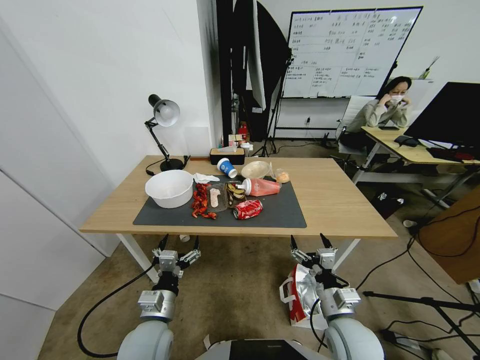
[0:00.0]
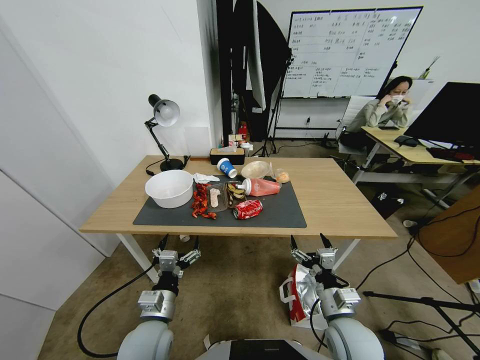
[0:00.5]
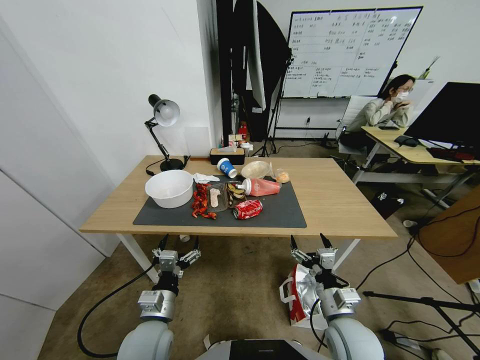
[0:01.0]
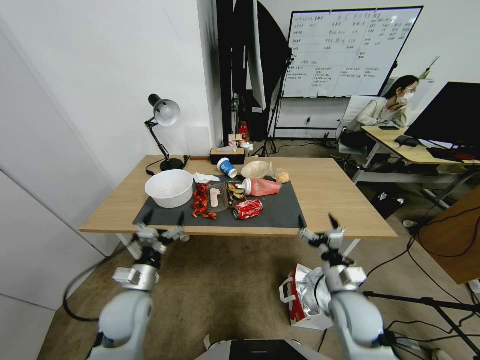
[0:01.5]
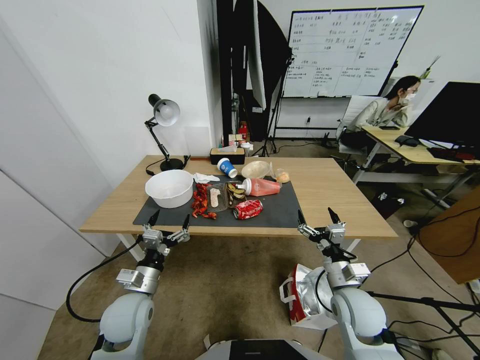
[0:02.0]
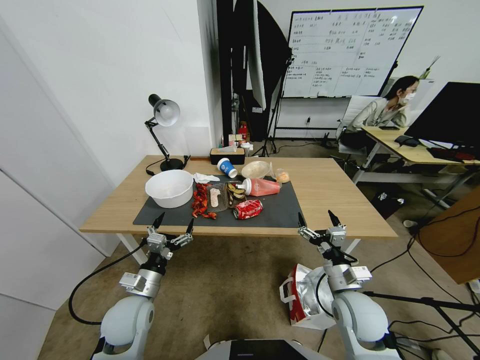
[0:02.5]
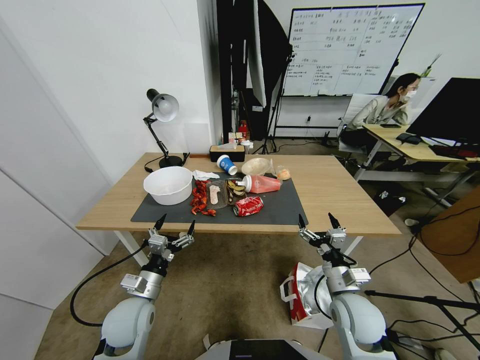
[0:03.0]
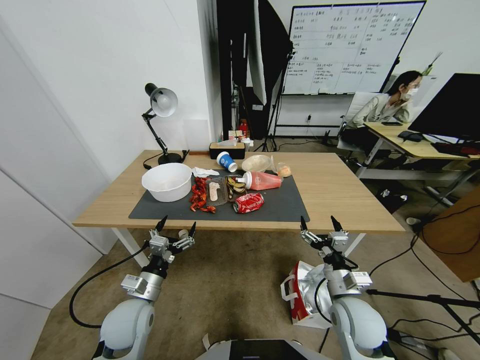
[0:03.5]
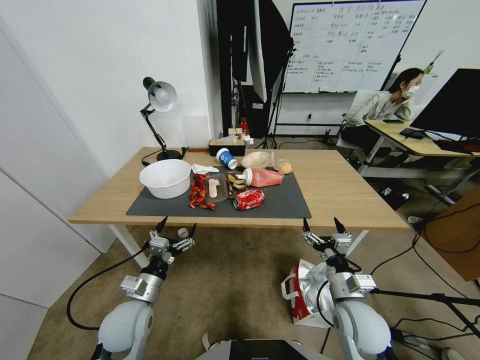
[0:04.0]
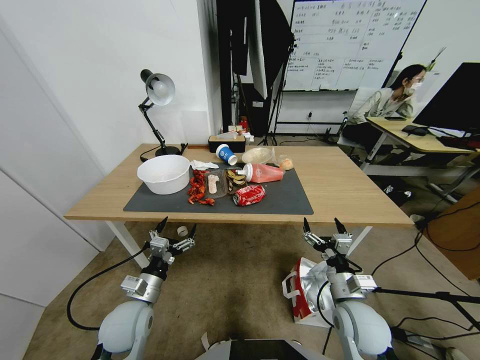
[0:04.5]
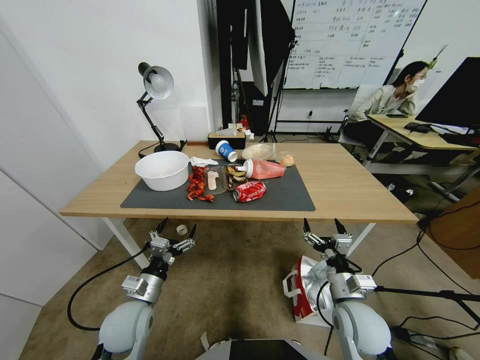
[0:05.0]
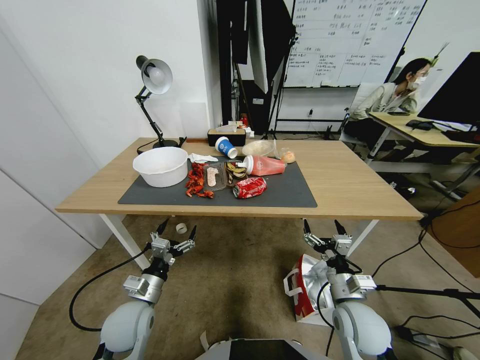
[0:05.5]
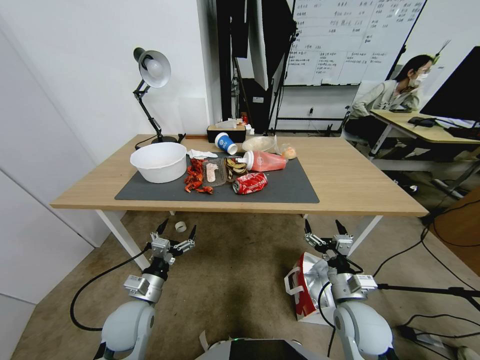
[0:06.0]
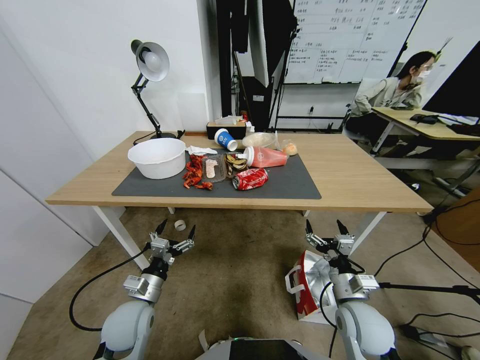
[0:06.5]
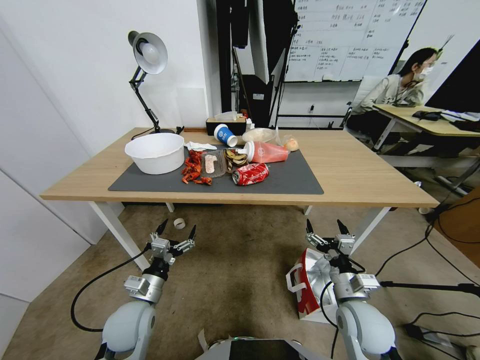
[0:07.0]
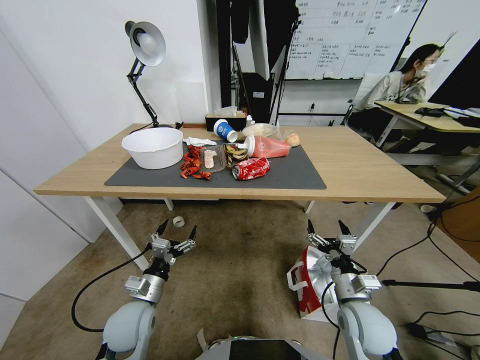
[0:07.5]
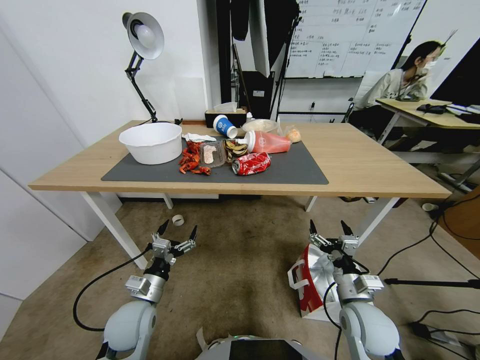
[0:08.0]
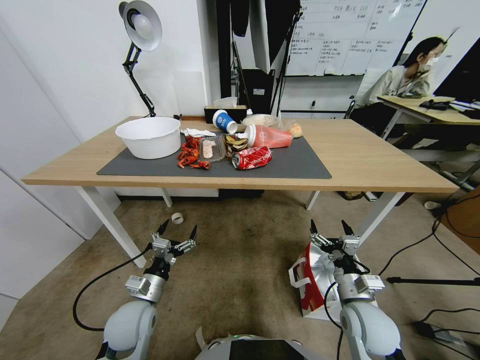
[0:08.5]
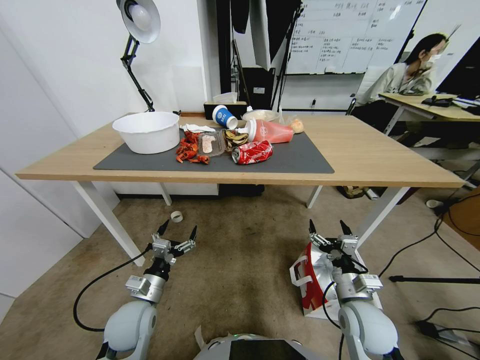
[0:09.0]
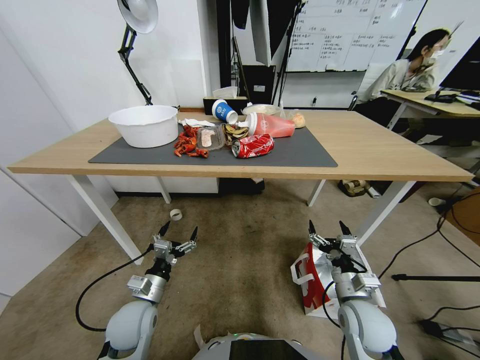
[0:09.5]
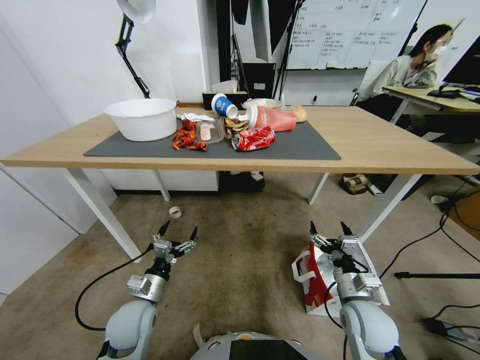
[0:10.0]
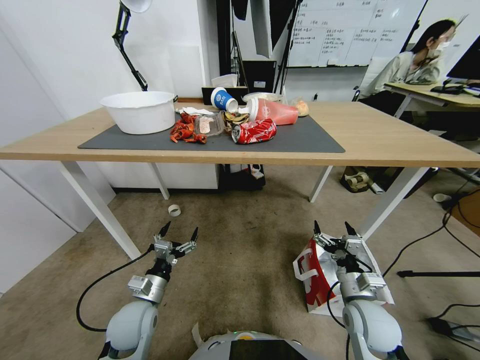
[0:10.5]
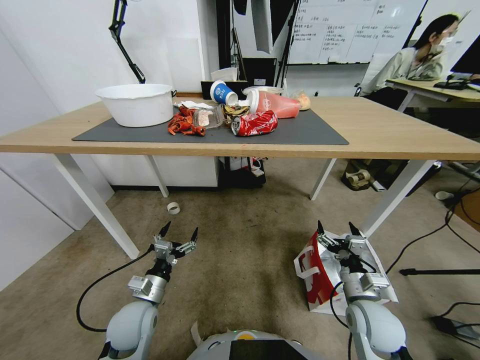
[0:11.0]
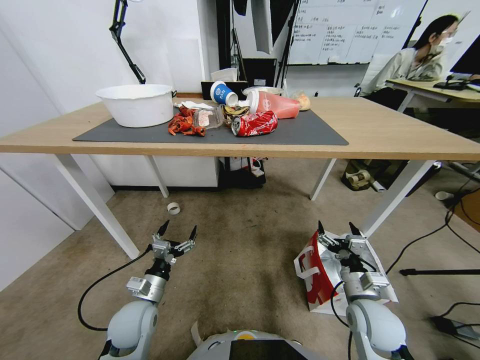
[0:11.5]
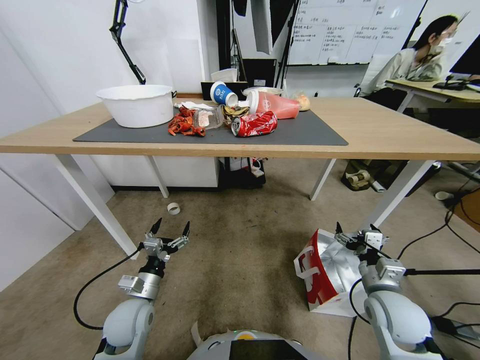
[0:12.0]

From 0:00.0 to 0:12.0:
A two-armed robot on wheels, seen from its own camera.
Task of the whole recording: Pick up the food delivery bag from the floor and place it on the table.
From 0:10.0 to 0:12.0: The right gripper travels to the right by about 5 cm.

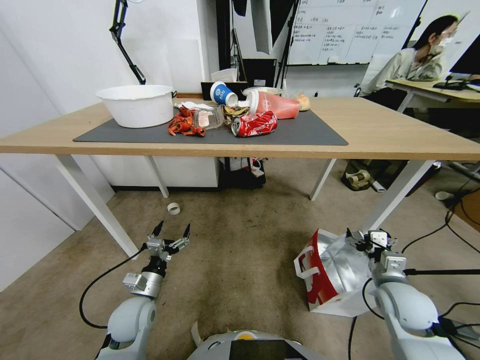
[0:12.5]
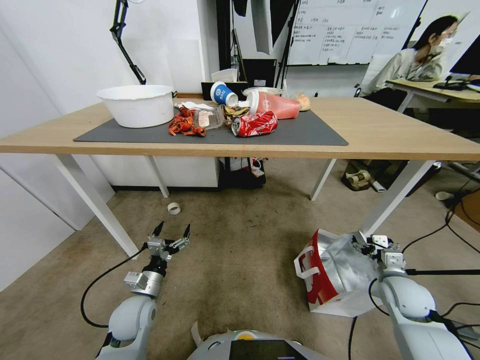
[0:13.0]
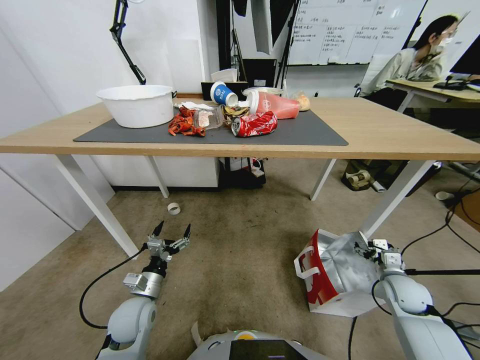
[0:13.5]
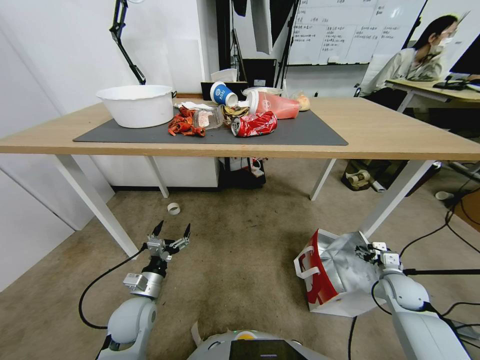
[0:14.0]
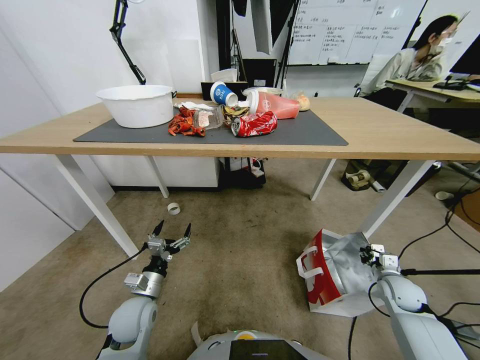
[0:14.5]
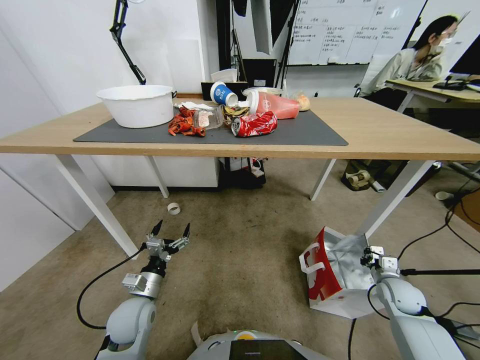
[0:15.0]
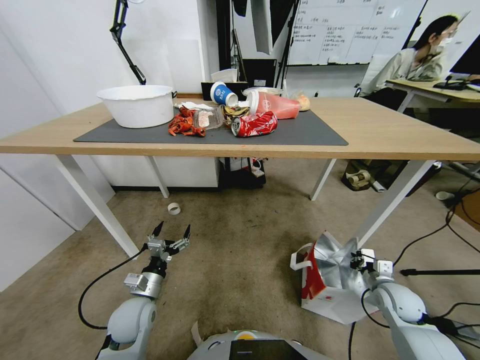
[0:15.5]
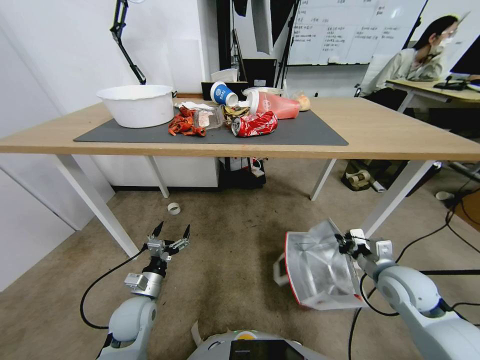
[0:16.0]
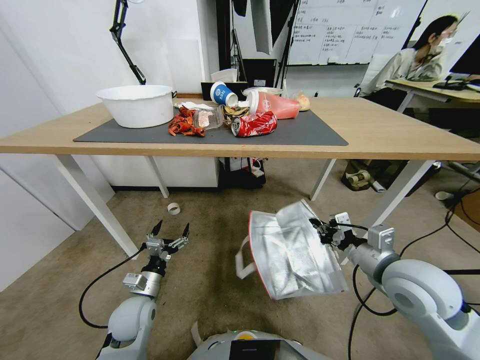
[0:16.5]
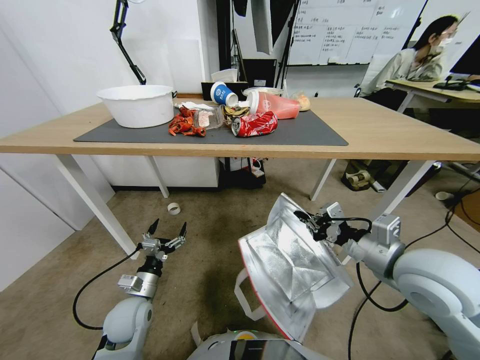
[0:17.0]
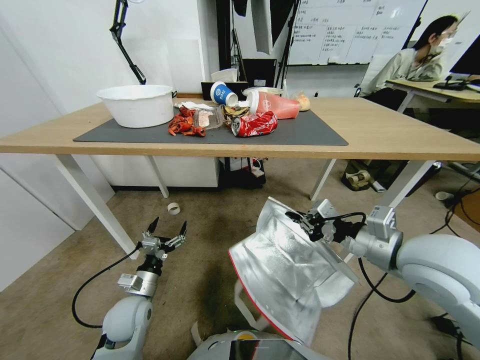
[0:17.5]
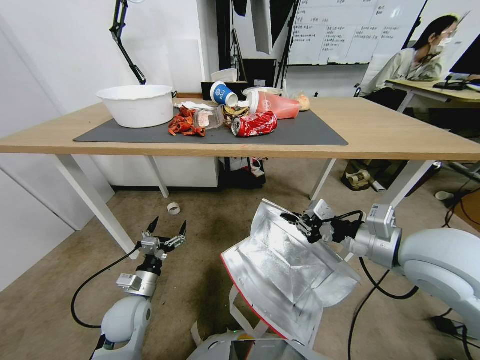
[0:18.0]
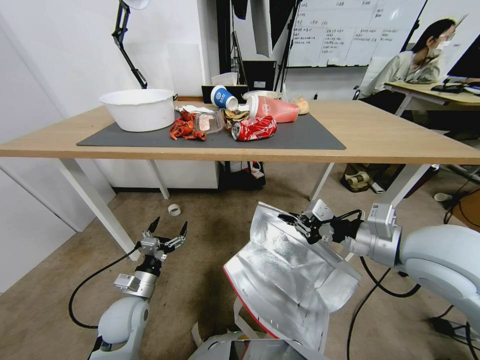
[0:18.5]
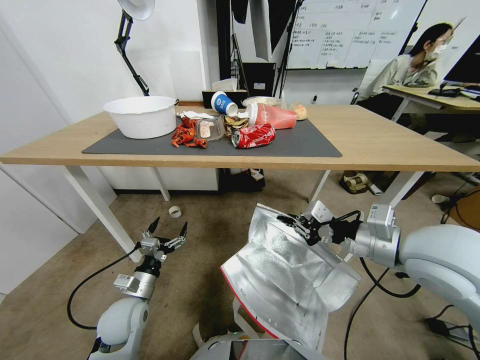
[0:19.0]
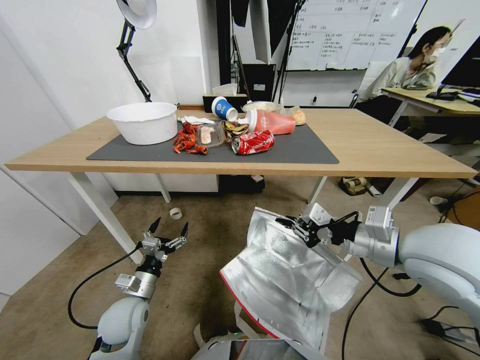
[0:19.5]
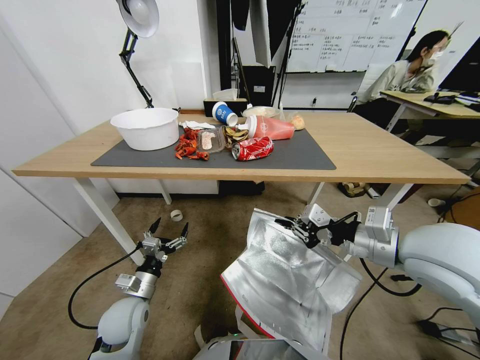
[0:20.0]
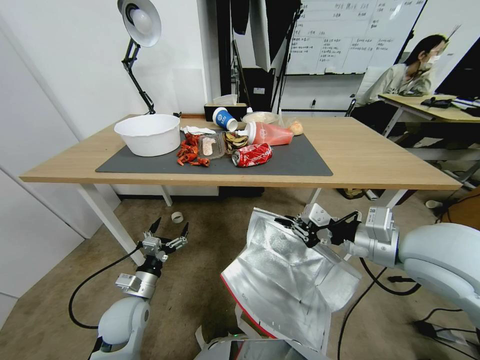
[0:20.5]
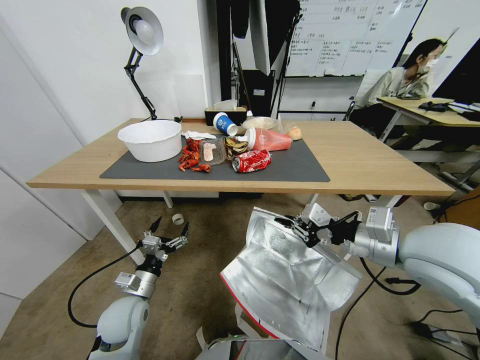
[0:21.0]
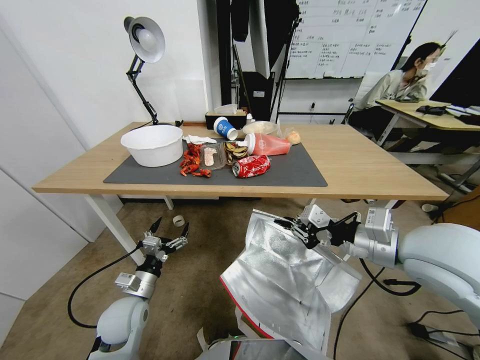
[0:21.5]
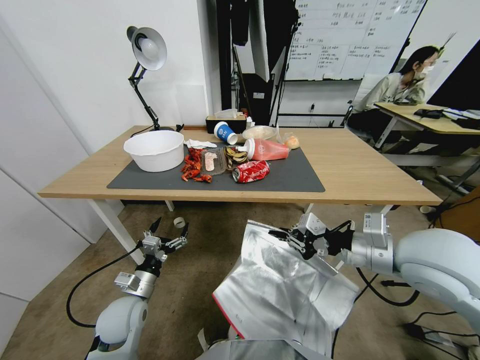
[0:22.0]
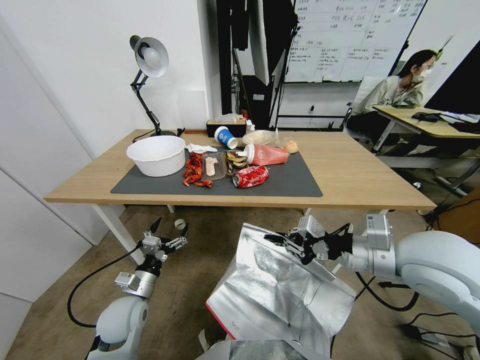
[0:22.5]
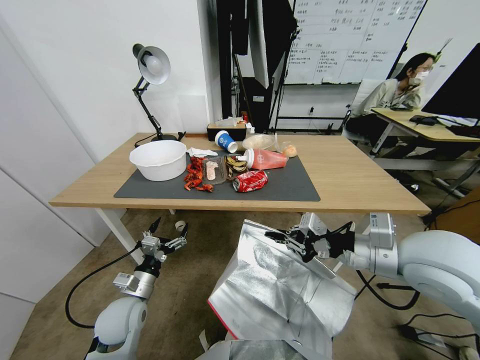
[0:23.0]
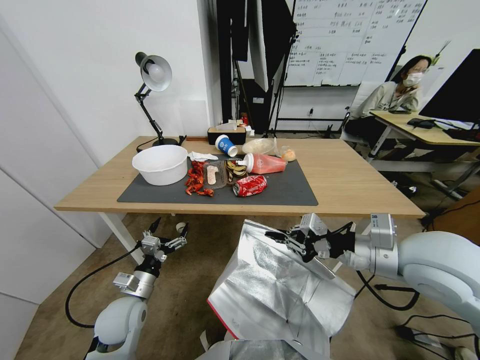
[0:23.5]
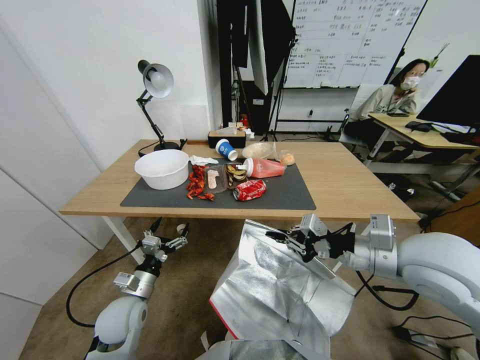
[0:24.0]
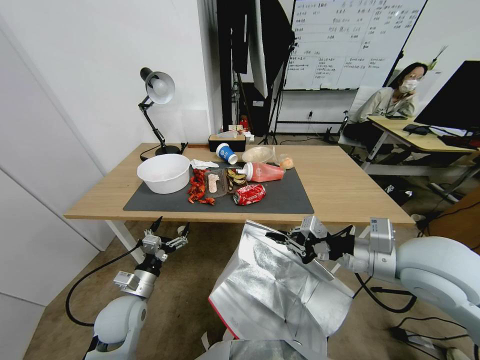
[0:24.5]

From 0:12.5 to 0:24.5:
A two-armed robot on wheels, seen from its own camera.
Task of the whole recording: Pick up the food delivery bag from the floor and place it on the table.
From 0:12.5 to 0:14.5: The right gripper moves downward and to the right, about 10 cm, and closes its fingers.
From 0:14.5 to 0:16.5: The right gripper heads upward and to the left, covering approximately 30 cm.
From 0:16.5 to 0:18.5: The right gripper travels upward by approximately 10 cm.

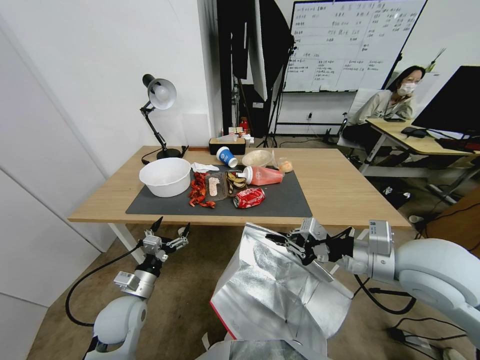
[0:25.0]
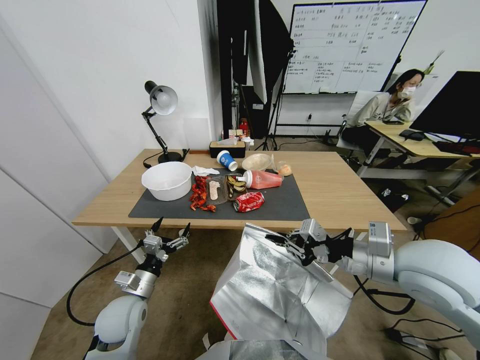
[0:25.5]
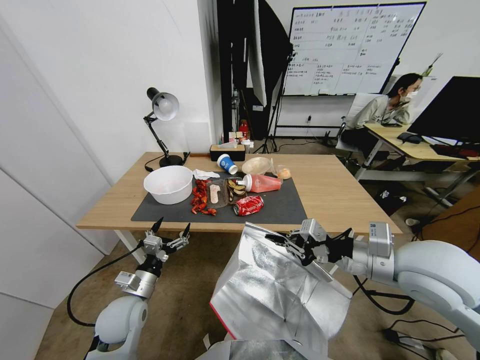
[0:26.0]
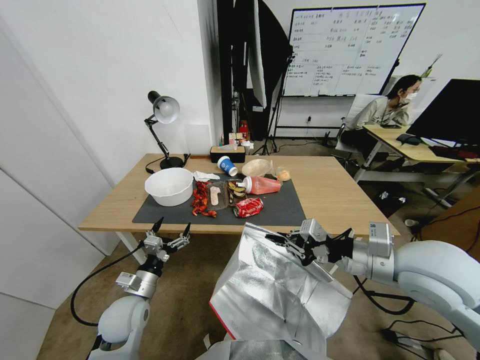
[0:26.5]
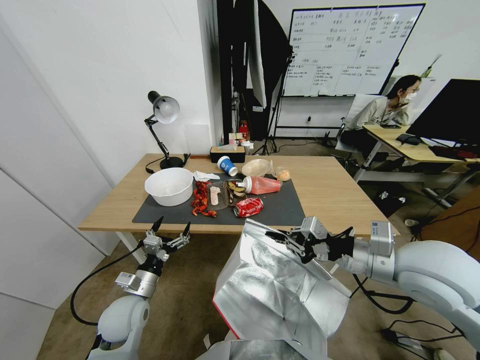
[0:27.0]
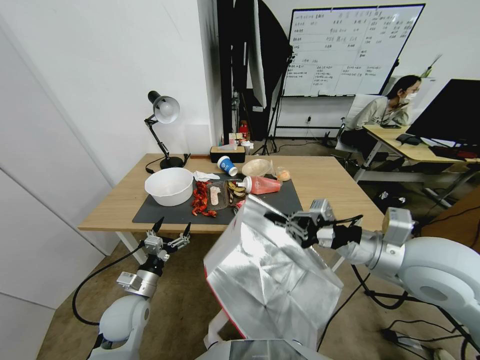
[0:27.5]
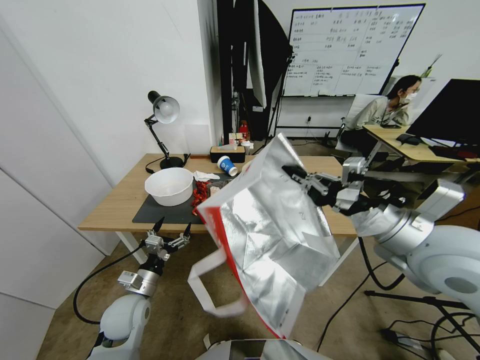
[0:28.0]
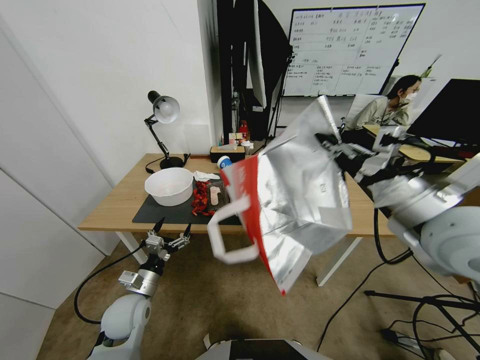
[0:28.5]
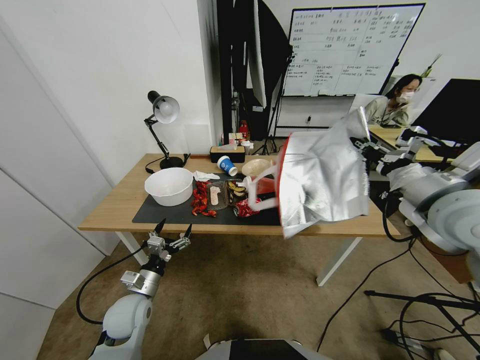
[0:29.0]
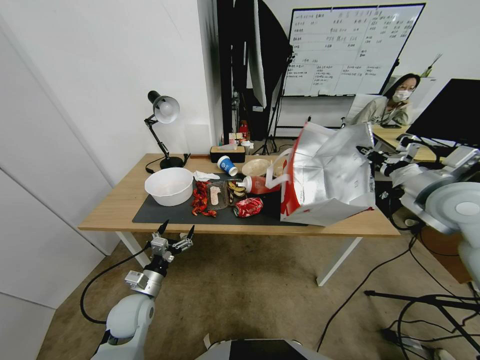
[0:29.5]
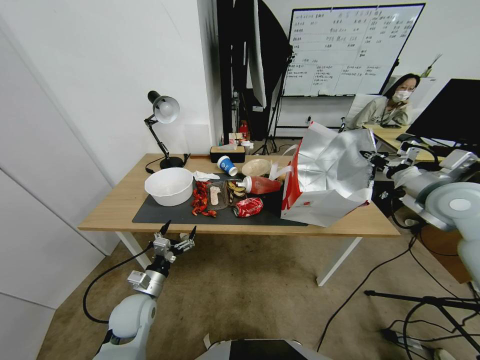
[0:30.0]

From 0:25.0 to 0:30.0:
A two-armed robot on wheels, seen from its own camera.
Task of the whole recording: Pick up the food delivery bag from the floor and place it on the table.
From 0:27.5 to 0:30.0: The right gripper moves to the right and forward, some 20 cm.
